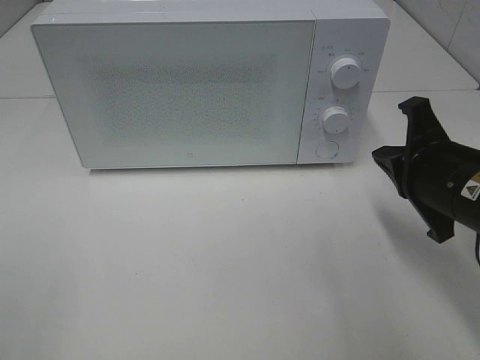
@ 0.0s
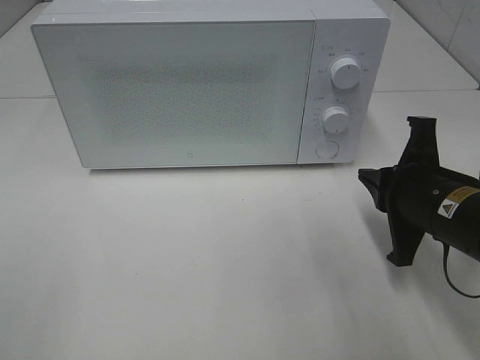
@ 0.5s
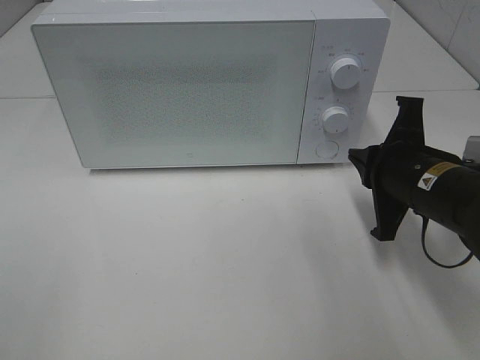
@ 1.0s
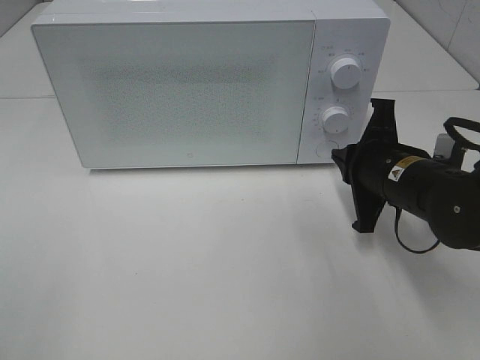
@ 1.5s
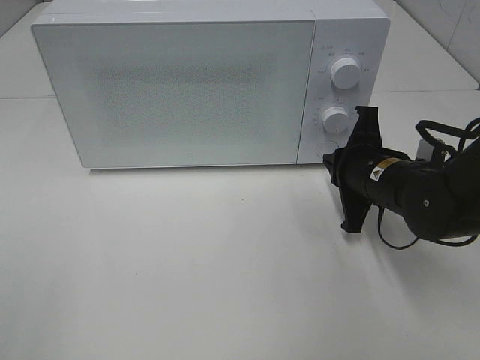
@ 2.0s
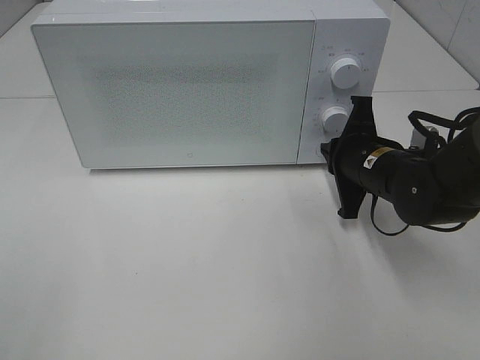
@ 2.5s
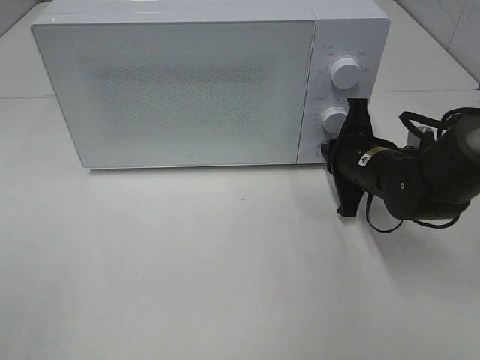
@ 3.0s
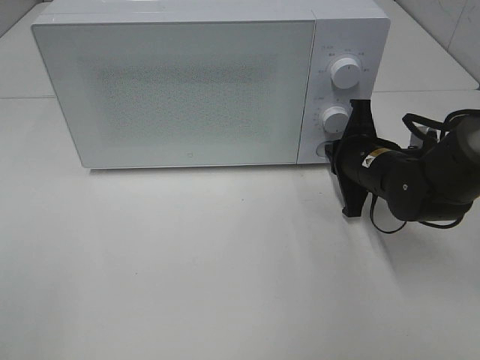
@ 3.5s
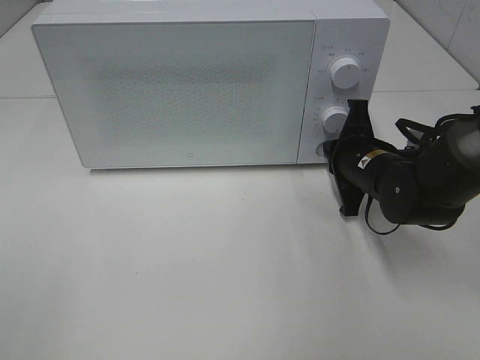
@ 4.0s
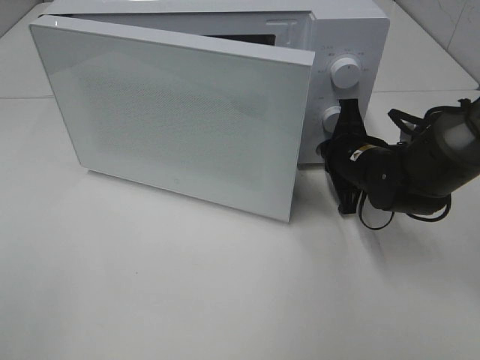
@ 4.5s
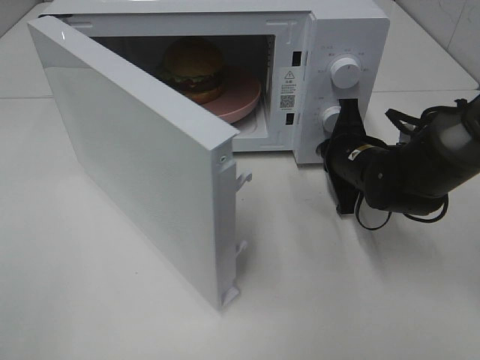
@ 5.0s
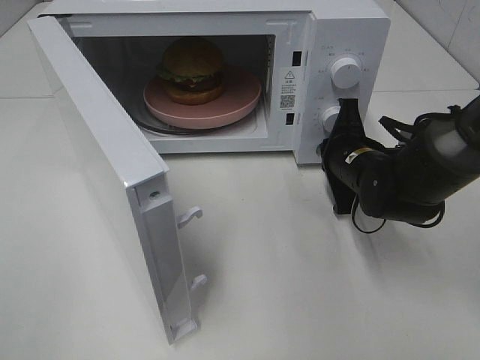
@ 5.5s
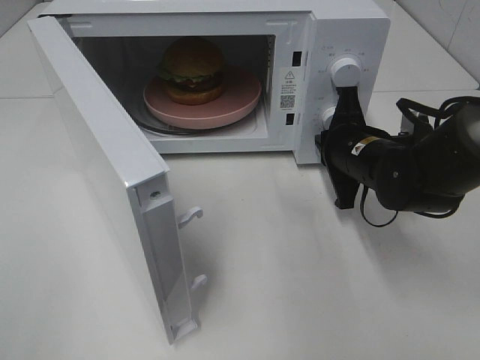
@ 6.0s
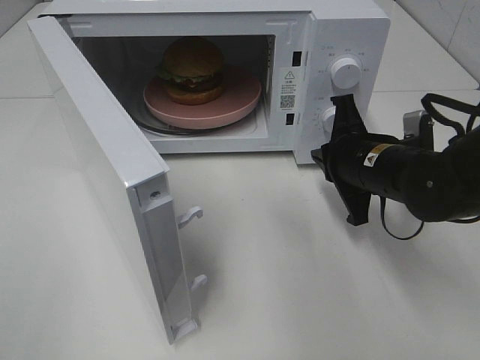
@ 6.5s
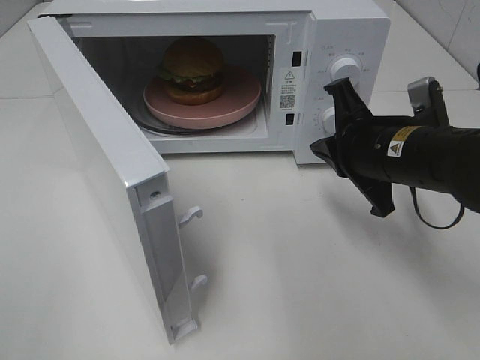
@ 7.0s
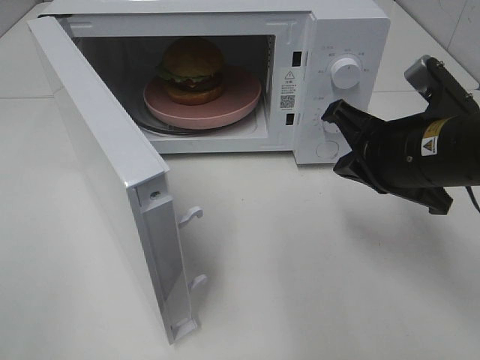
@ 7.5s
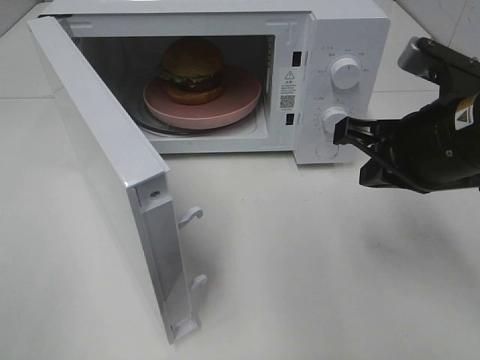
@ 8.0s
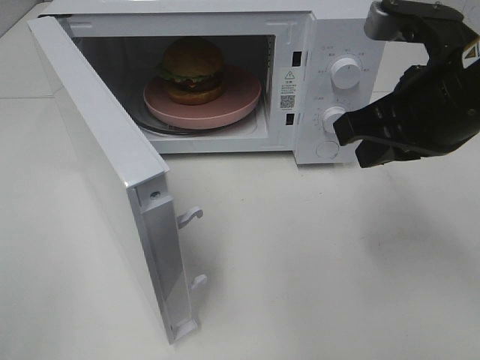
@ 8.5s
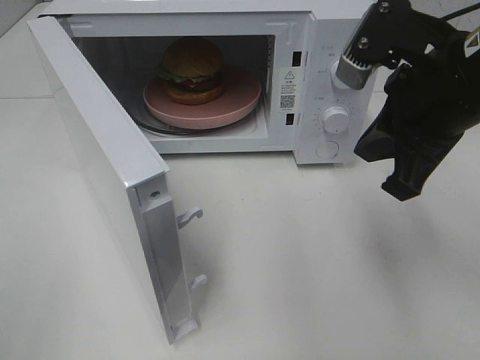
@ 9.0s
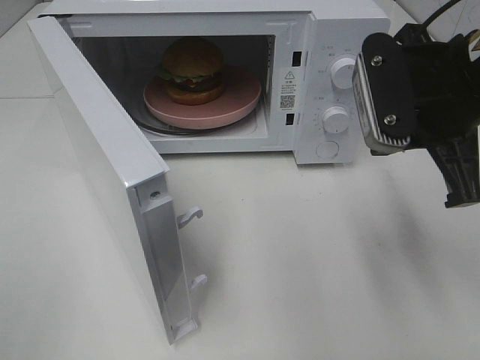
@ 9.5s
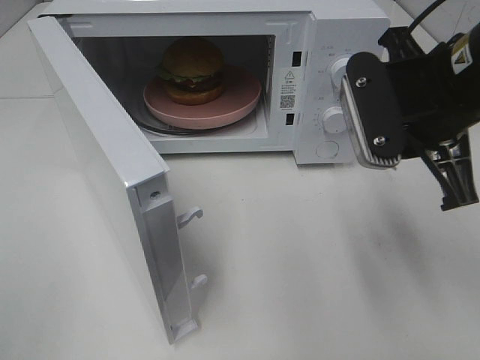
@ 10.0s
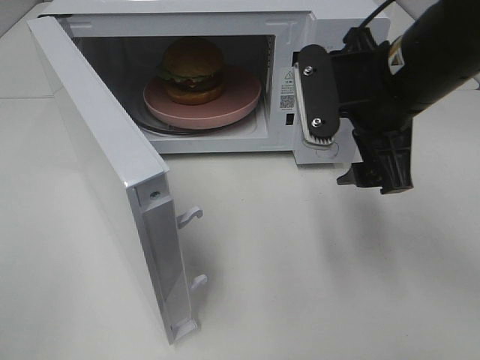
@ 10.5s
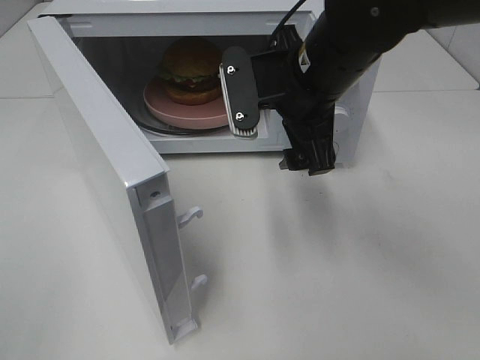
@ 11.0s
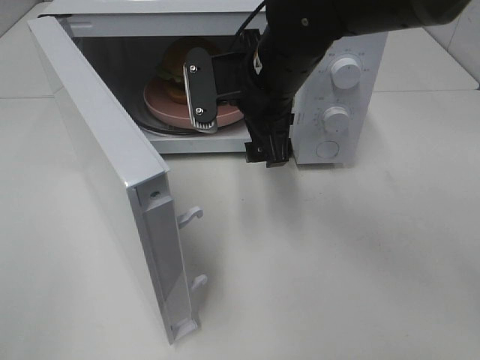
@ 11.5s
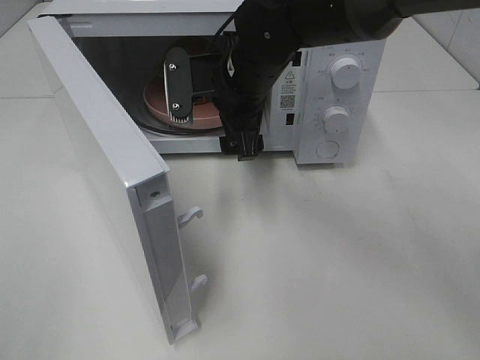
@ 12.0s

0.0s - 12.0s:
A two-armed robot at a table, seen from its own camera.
Task of the whole recording: Heat the burger.
Step, 0.0s - 5.5s: Right hand: press the switch.
0.0s - 2.0s: The right gripper goes some 10 cm forward and downward.
2.0s - 4.0s: There are only small adjustments of the grippers.
6.0s - 8.0s: The right gripper travels upward and backward by approximately 15 cm.
10.0s - 12.0s: The right gripper heads to the left, forward and downward, covering about 20 cm, and opens up.

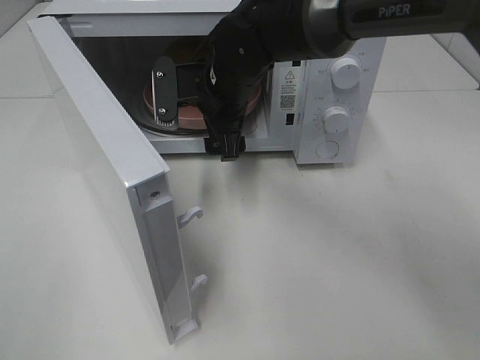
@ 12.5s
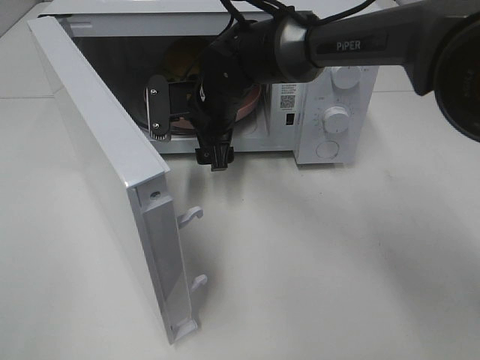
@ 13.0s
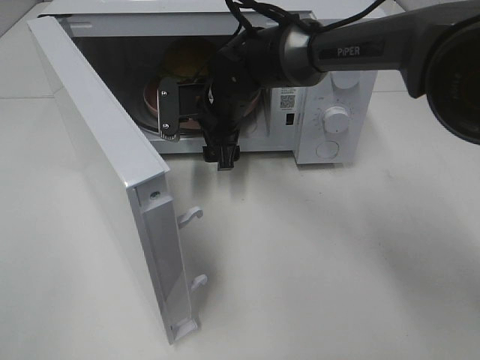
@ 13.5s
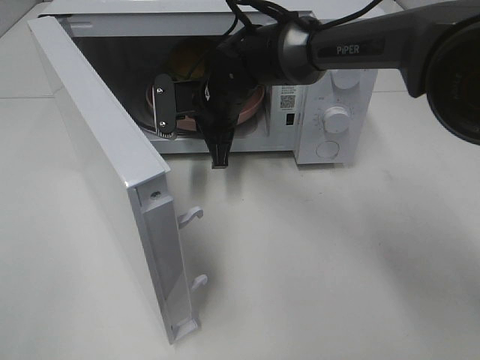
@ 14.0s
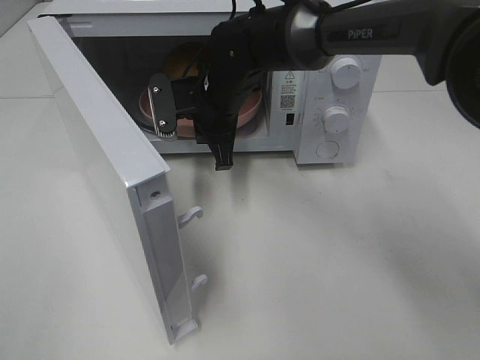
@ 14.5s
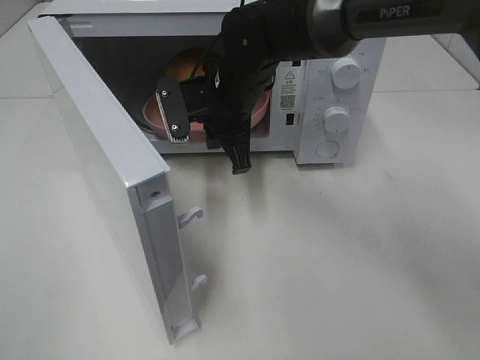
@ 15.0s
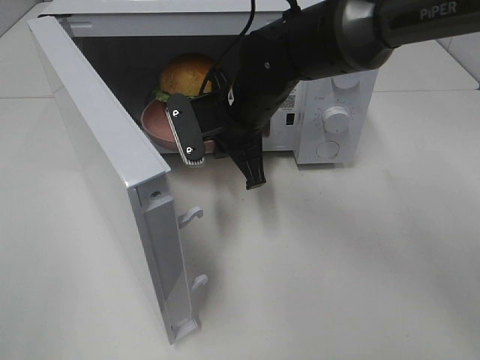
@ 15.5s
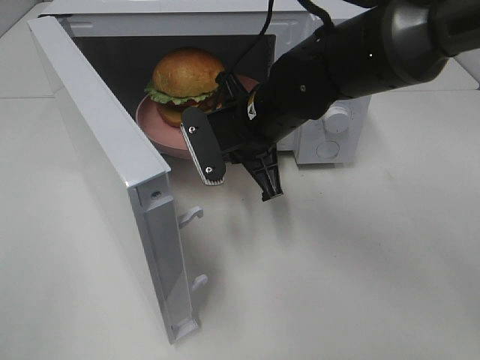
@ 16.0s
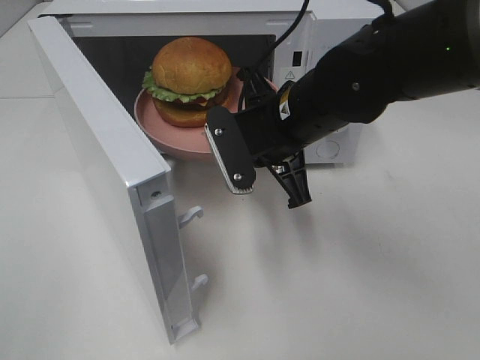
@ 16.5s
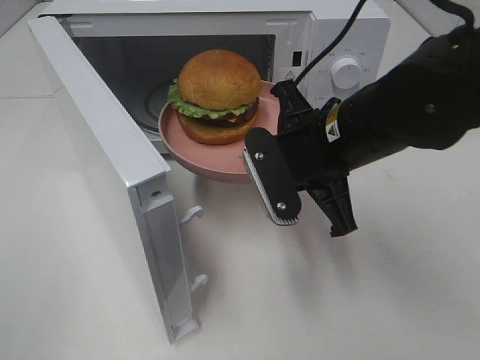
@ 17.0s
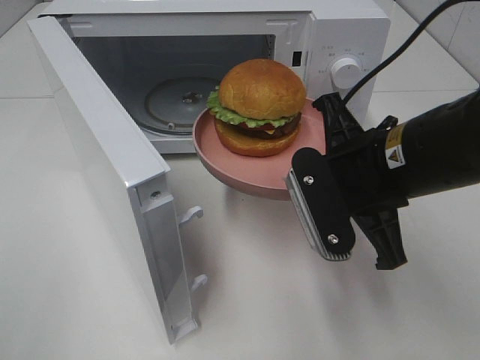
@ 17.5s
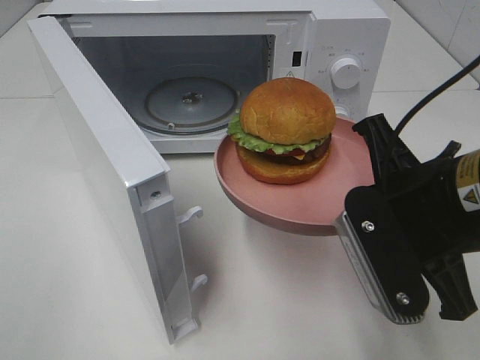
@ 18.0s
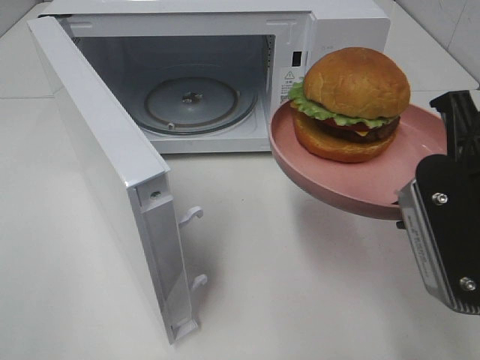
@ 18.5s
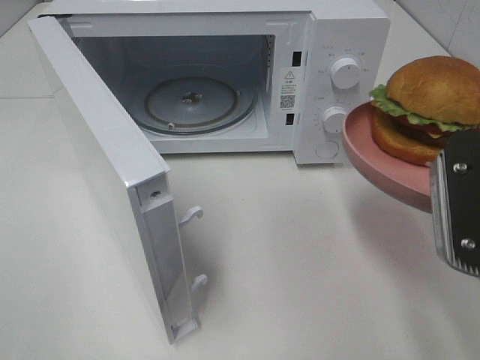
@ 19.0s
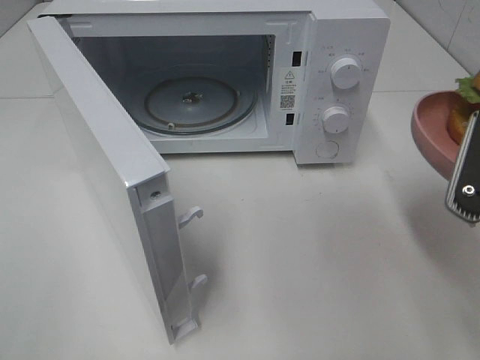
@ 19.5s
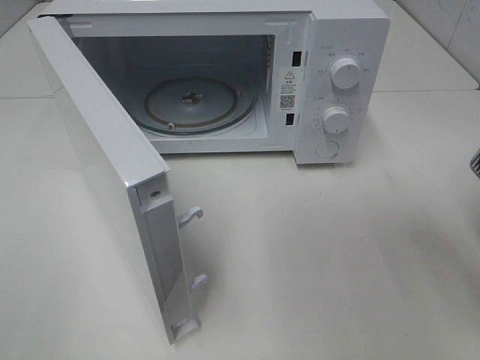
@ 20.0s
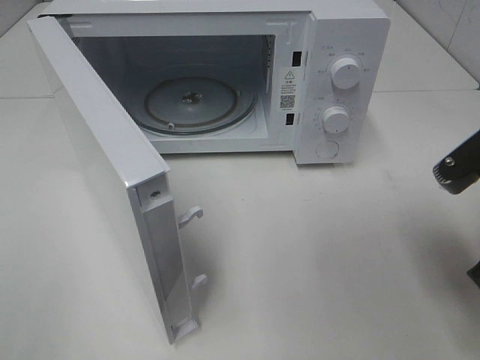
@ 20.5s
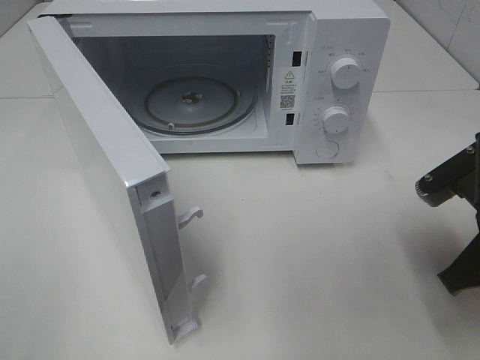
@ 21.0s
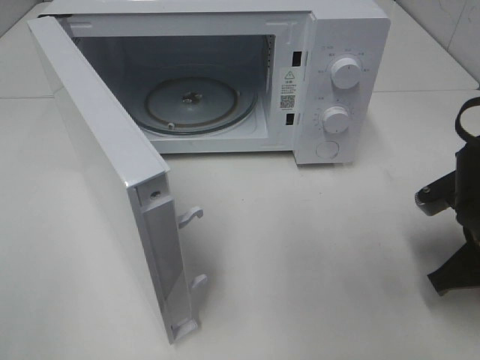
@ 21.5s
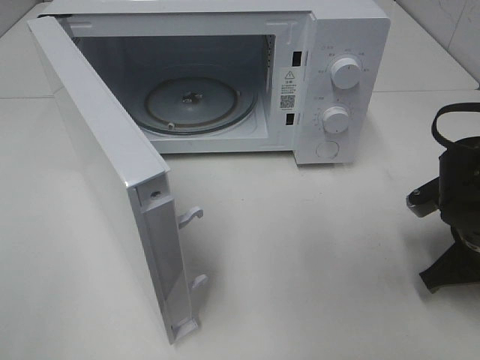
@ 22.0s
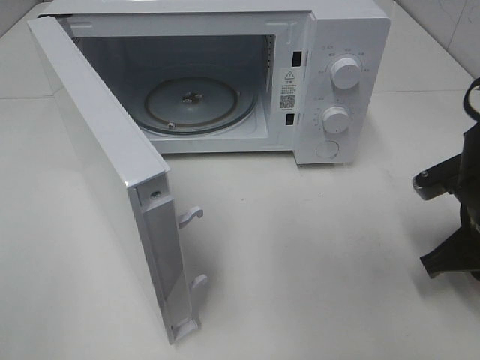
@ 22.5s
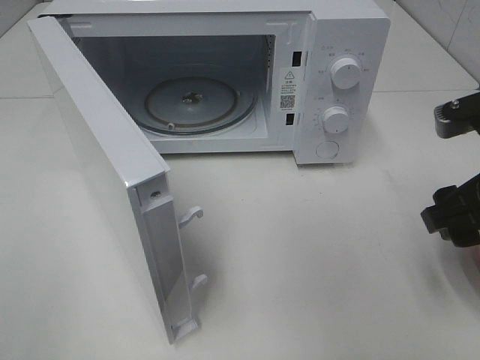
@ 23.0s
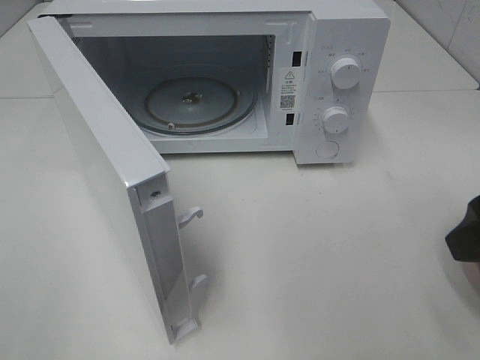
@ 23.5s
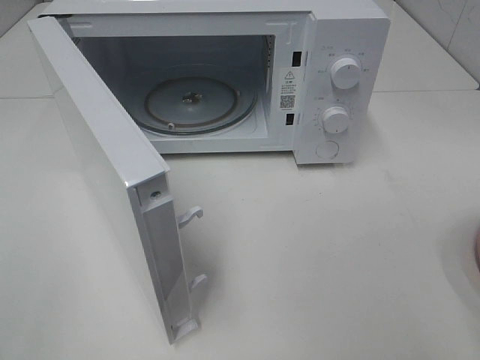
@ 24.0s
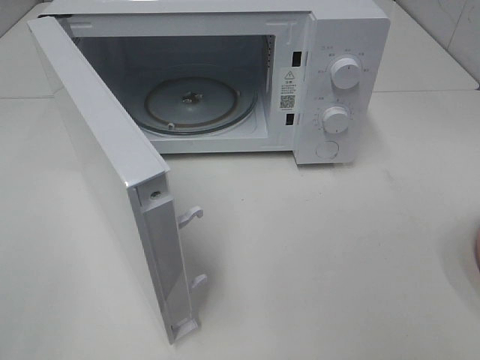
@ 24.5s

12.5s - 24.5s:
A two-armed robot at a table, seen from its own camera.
Task of the whole recording: Heat the burger.
Step, 14.5s - 22.0s: Right hand: place the plate on the table.
12.5s - 14.5s: The right gripper closes up.
14.5s - 16.5s: The right gripper is displaced backward and to the right by some 15 cm.
16.5s - 18.5s: The right gripper shifts about 20 cm backward and to the right.
18.5s - 20.5s: The right gripper shifts by some 5 cm.
20.5s - 22.5s: The right gripper heads downward and forward, covering roughly 10 cm.
22.5s - 24.5s: The right gripper moves backward and upward, some 25 cm, and opens.

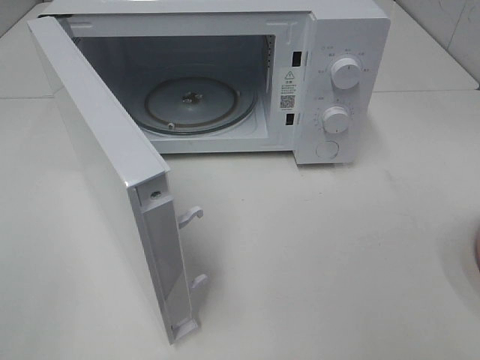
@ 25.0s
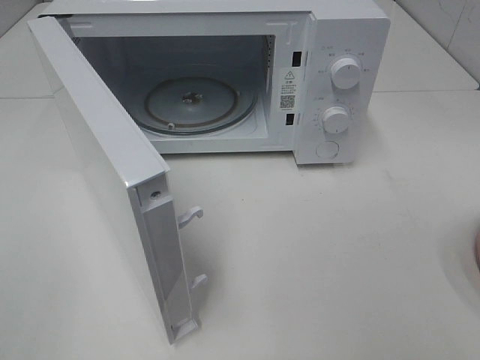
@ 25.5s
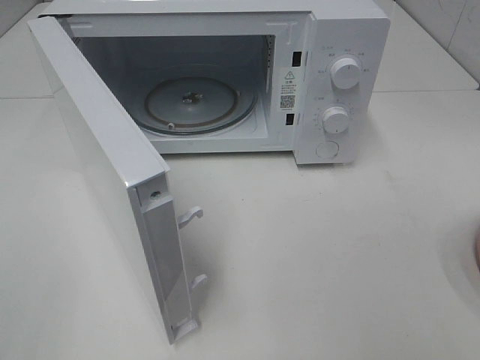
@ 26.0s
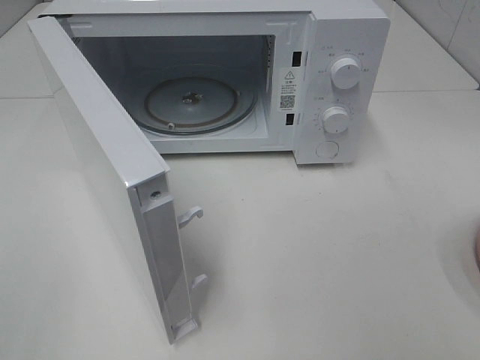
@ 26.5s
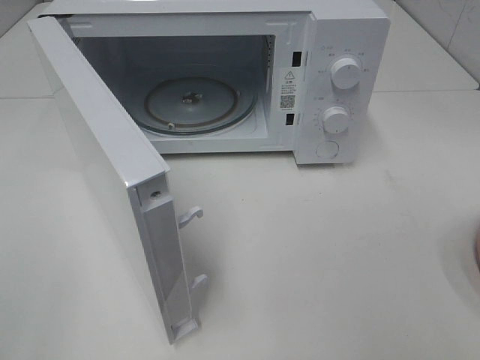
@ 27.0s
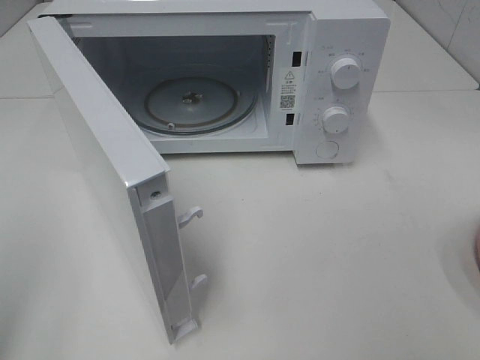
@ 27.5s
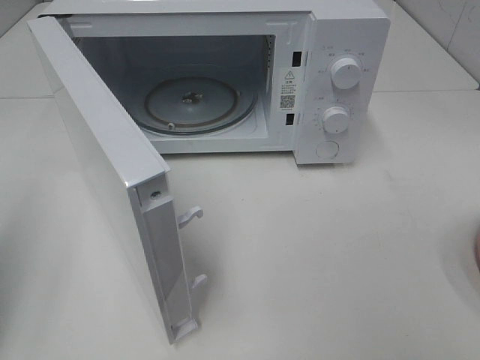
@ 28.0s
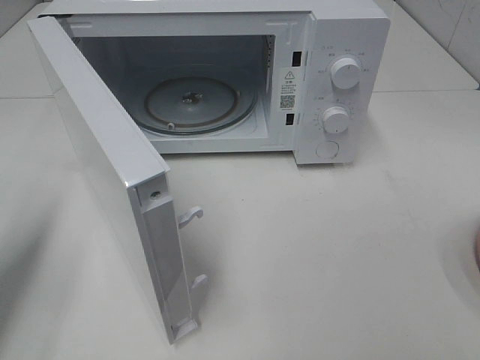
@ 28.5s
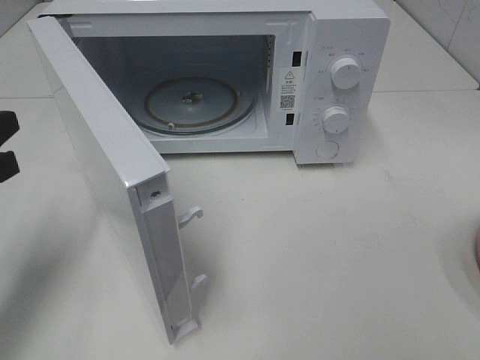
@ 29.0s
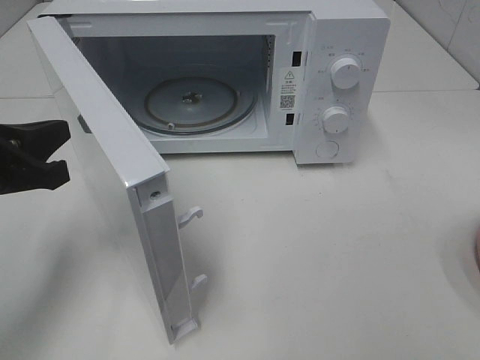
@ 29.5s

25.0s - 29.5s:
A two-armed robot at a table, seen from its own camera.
Task of the whole recording: Heat the burger.
25.0s - 27.0s: Both grippers stay about where they are.
27.0s - 29.5s: The left gripper shifts roughly 25 cm forward and downward, and closes.
